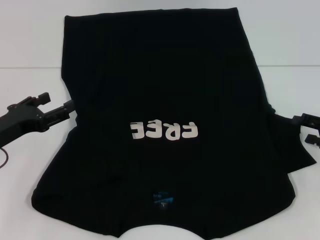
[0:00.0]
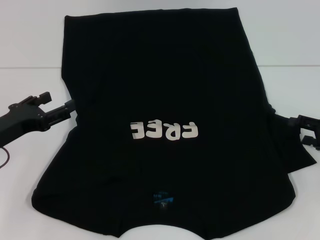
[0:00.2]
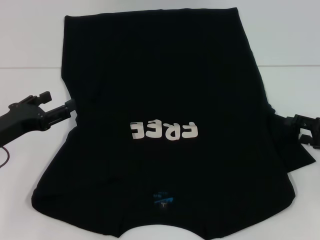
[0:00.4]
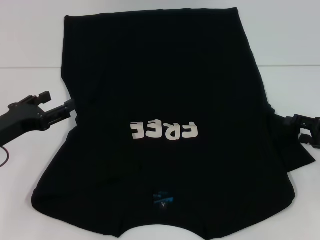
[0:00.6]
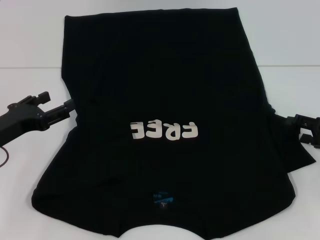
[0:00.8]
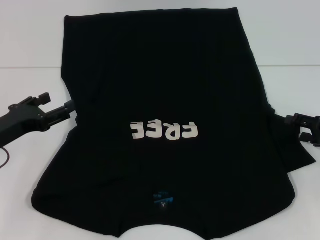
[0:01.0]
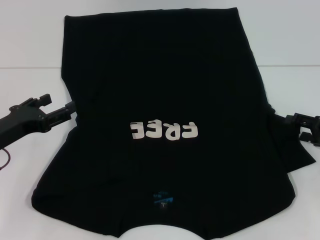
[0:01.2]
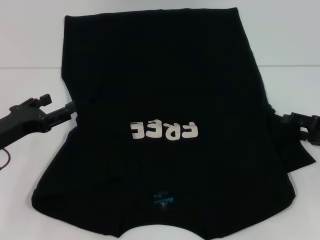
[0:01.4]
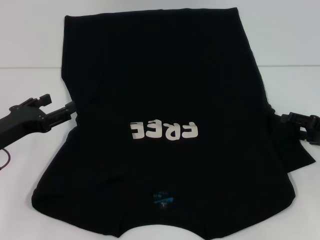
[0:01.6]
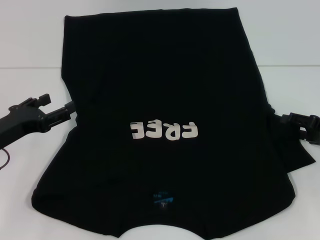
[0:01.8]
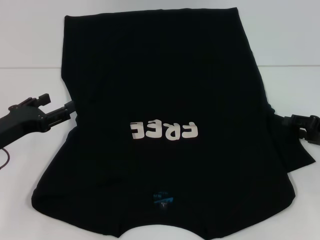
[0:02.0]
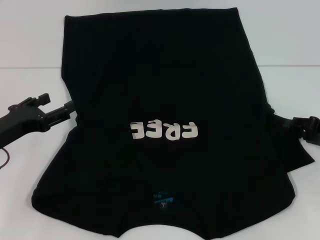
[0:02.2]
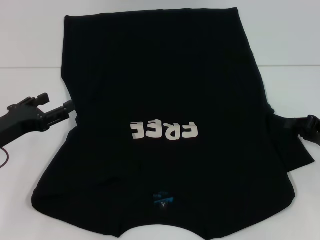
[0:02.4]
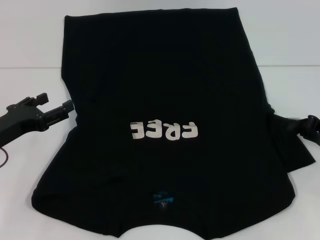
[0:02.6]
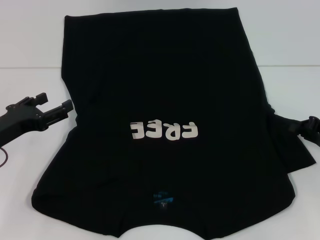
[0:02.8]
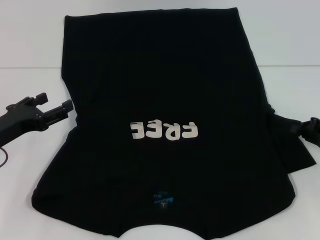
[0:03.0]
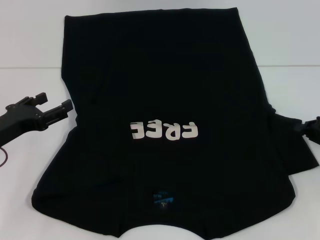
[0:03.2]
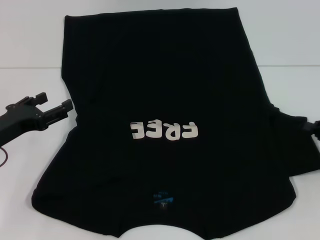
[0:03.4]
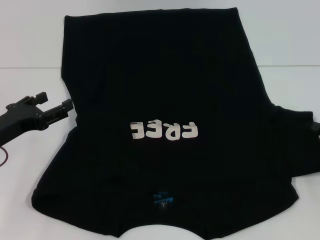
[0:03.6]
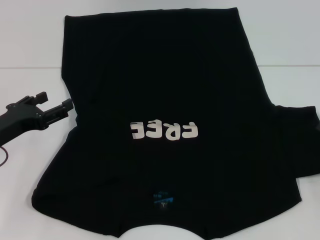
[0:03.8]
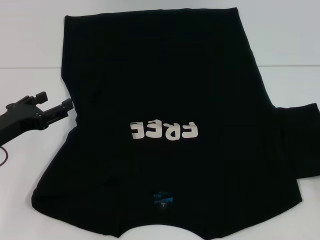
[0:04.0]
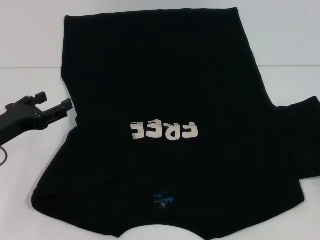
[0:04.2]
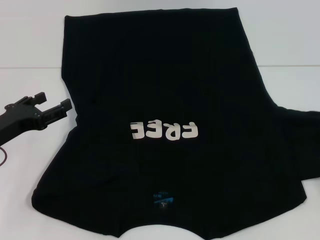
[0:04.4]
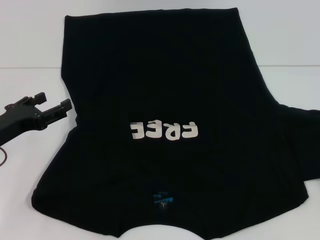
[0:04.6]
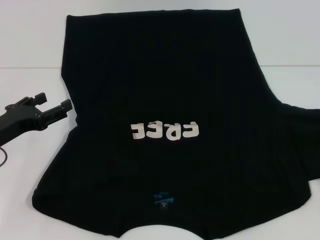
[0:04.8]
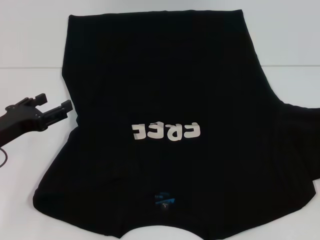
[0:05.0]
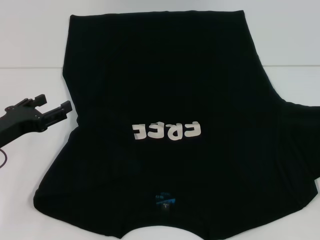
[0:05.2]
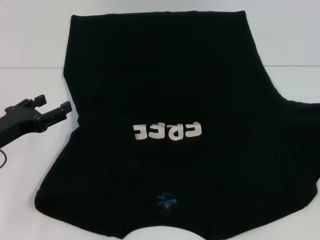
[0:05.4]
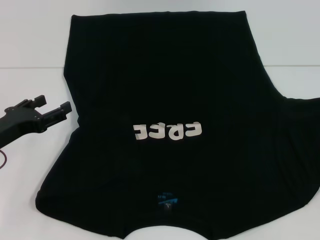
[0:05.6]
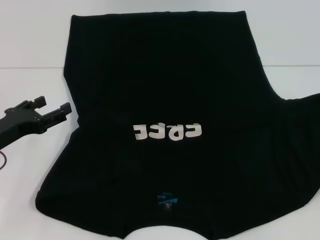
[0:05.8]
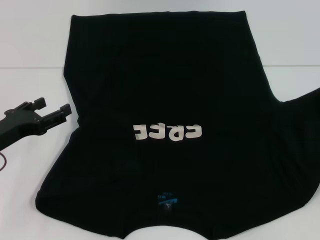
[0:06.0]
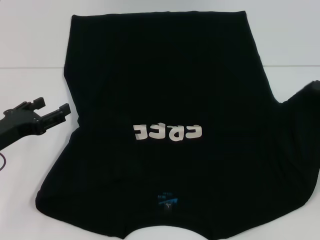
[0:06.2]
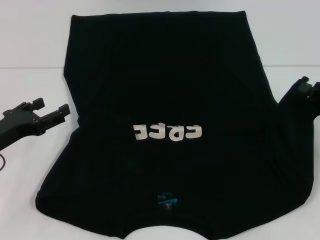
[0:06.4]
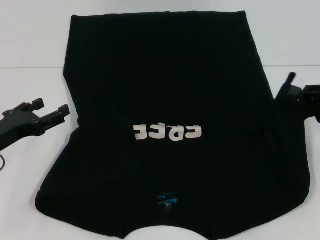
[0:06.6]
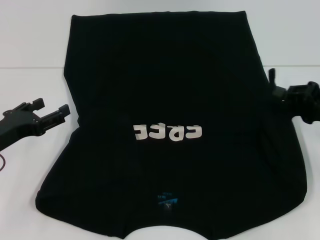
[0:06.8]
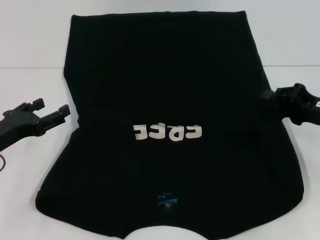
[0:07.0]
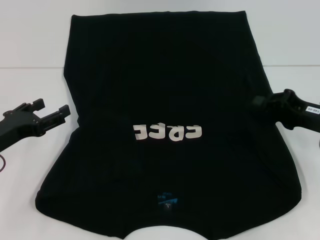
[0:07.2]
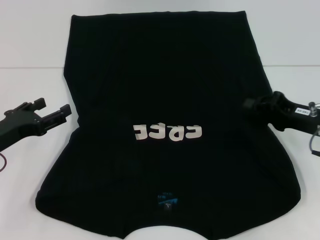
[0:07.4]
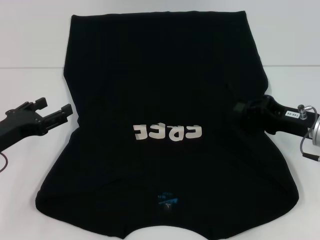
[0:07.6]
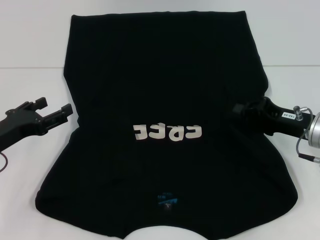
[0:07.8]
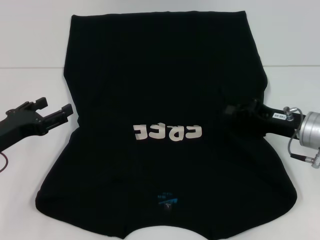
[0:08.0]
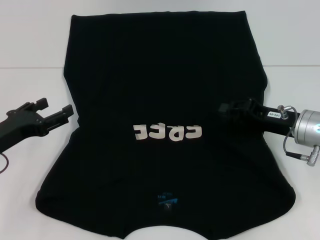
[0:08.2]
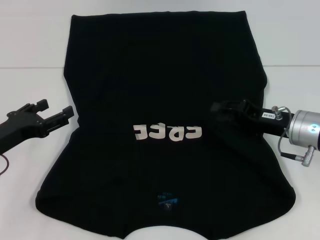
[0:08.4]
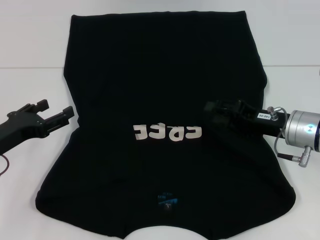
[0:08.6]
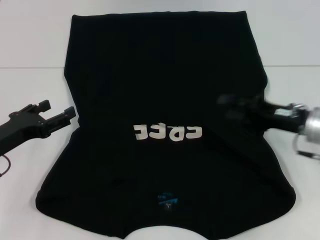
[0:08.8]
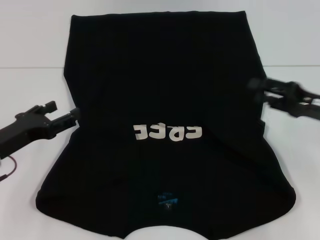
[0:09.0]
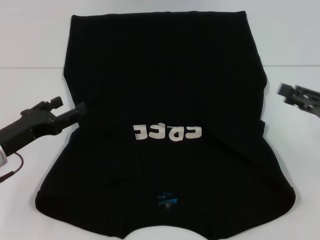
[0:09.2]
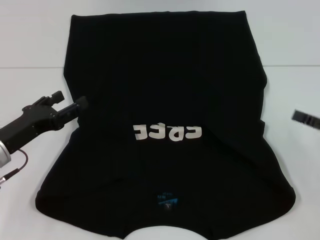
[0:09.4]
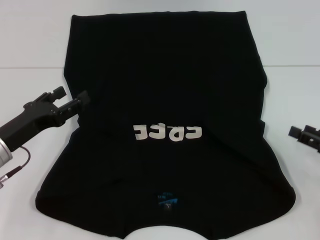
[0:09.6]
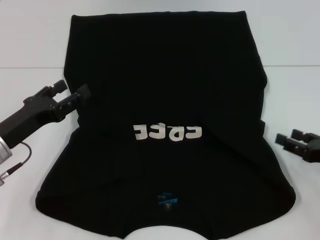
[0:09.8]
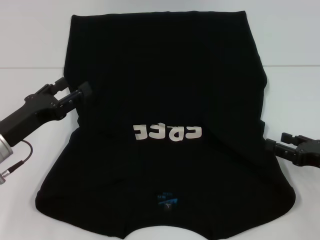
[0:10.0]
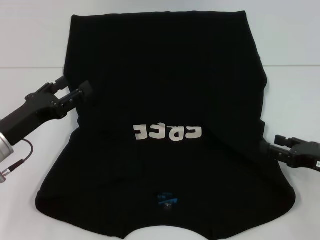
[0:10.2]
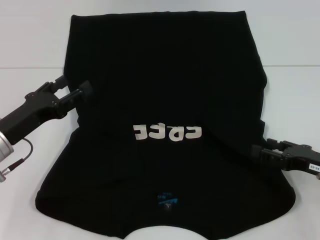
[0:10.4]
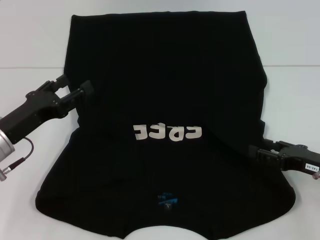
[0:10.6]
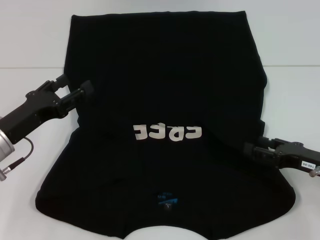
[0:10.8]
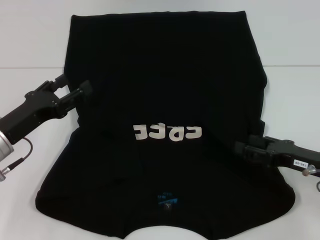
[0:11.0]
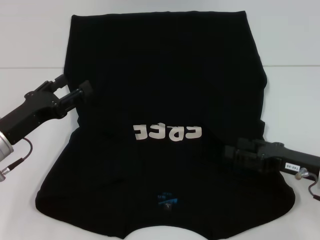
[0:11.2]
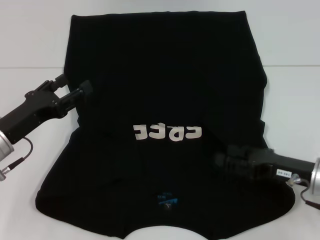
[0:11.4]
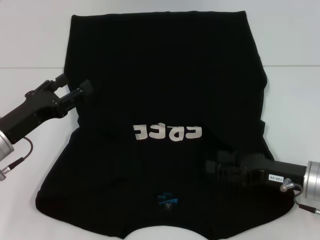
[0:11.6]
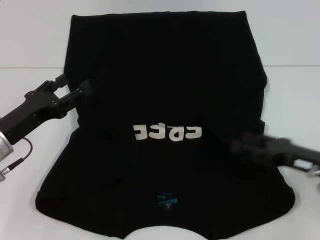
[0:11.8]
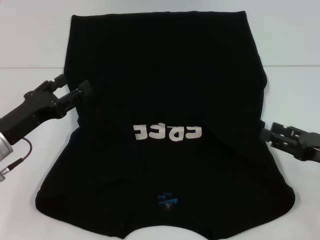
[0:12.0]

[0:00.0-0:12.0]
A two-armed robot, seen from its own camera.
Step, 0:00.0 to 0:08.8: Fold the bottom right sleeve with your right hand.
0:00.0 to 0:01.6: The grippers move only a little.
0:01.6 to 0:03.0: The right gripper closes up.
0:03.0 to 0:04.4: The right gripper heads to the right, covering approximately 5 cm.
0:04.4 to 0:06.0: There are only small adjustments of the grippers.
0:06.0 to 0:07.6: The right gripper travels to the left by approximately 10 cm.
0:07.6 to 0:09.0: The right gripper opens up.
0:09.0 to 0:10.4: The right gripper heads downward, covering about 5 cm.
0:10.4 to 0:12.0: The grippers move only a little.

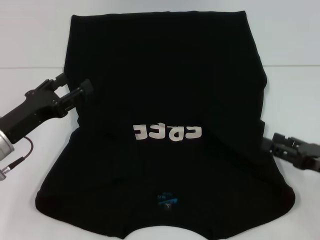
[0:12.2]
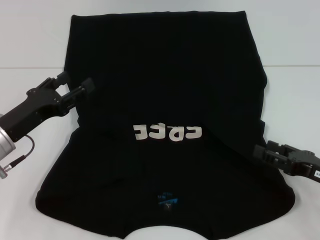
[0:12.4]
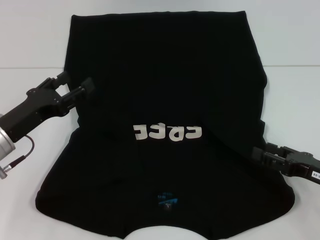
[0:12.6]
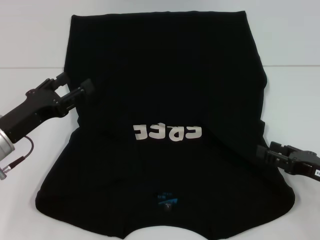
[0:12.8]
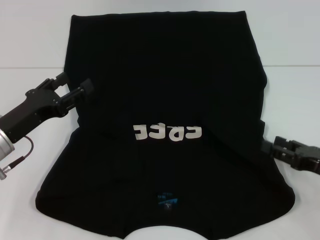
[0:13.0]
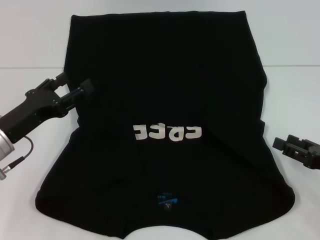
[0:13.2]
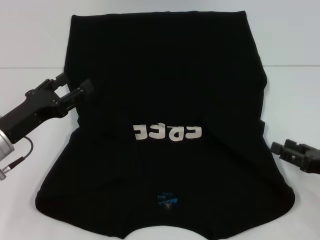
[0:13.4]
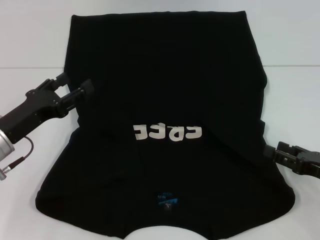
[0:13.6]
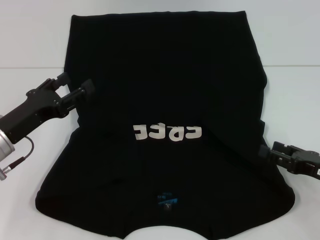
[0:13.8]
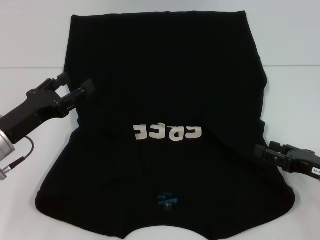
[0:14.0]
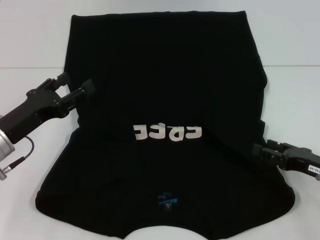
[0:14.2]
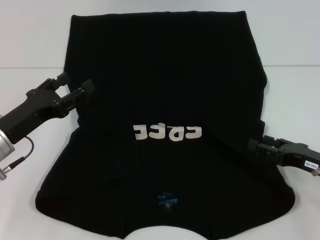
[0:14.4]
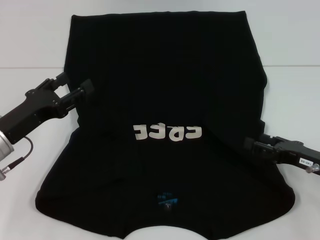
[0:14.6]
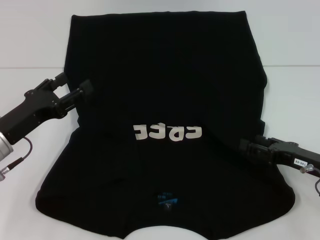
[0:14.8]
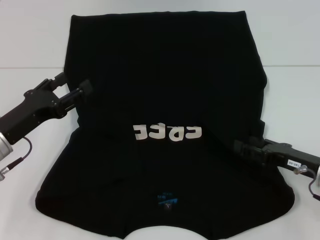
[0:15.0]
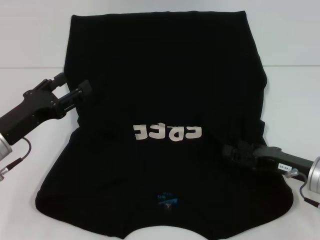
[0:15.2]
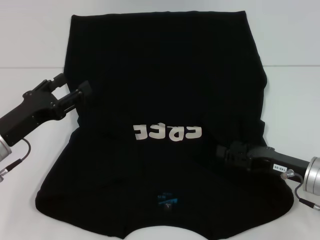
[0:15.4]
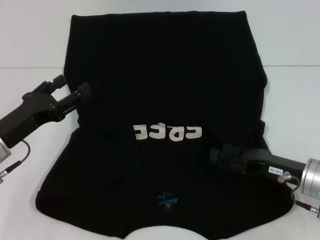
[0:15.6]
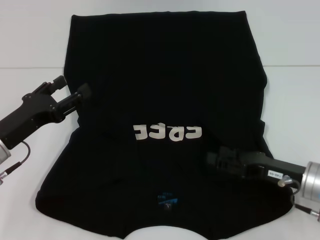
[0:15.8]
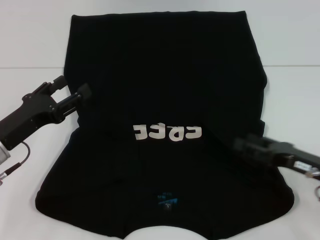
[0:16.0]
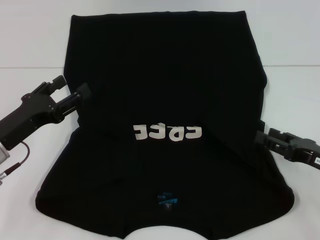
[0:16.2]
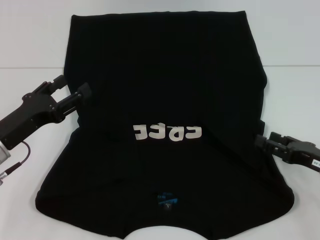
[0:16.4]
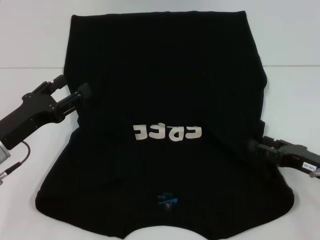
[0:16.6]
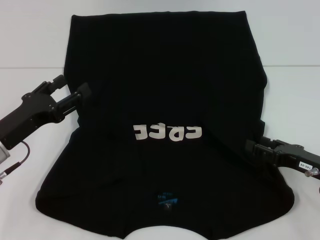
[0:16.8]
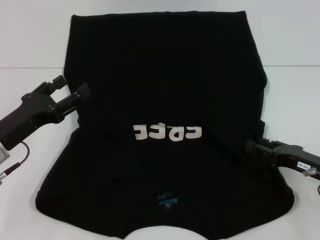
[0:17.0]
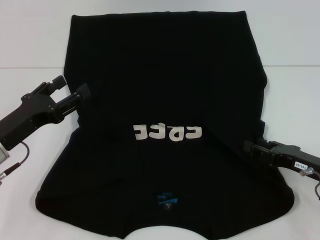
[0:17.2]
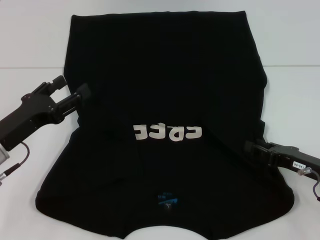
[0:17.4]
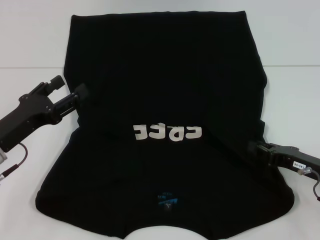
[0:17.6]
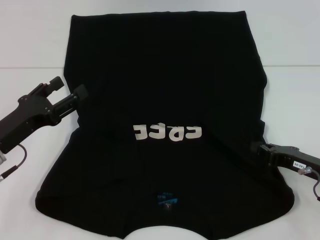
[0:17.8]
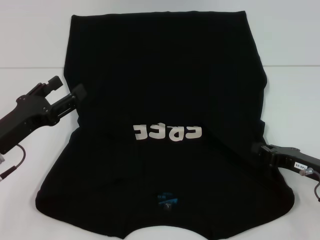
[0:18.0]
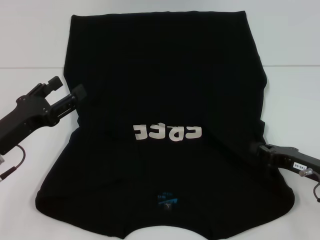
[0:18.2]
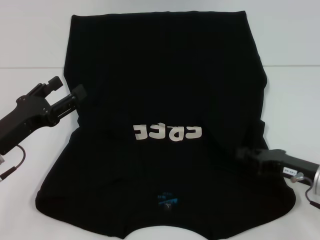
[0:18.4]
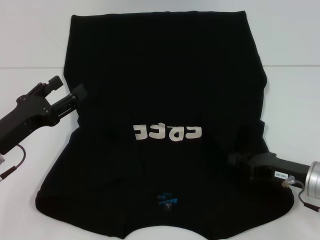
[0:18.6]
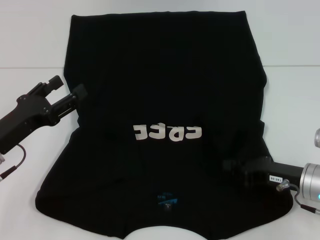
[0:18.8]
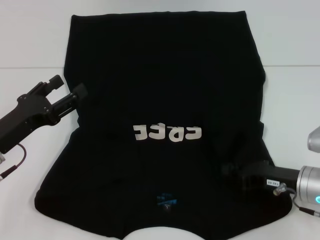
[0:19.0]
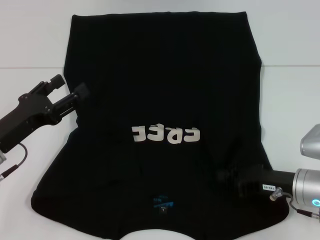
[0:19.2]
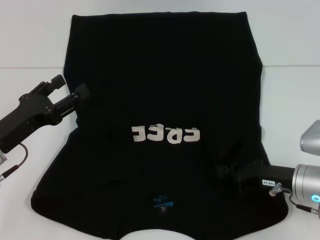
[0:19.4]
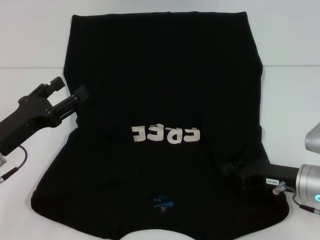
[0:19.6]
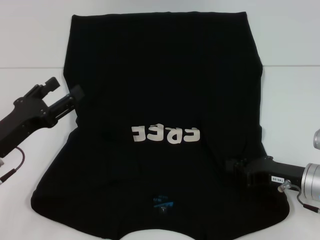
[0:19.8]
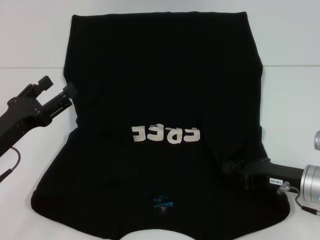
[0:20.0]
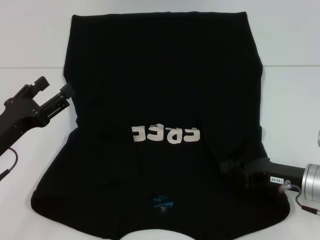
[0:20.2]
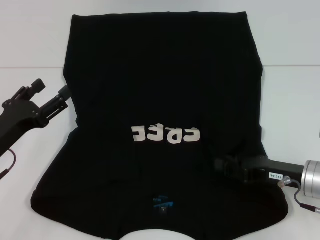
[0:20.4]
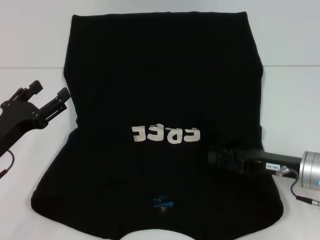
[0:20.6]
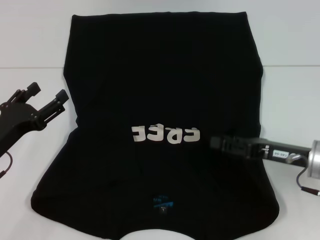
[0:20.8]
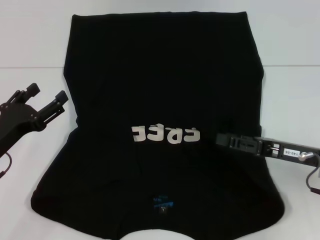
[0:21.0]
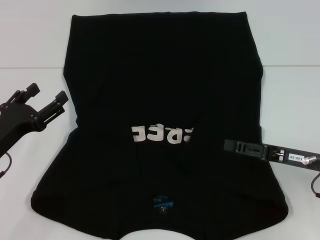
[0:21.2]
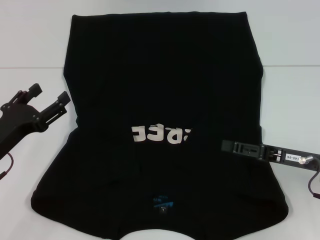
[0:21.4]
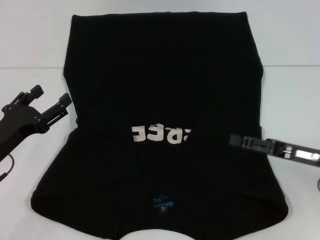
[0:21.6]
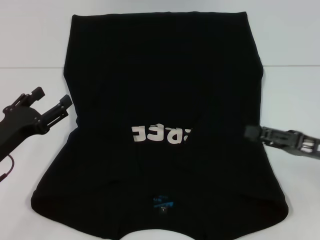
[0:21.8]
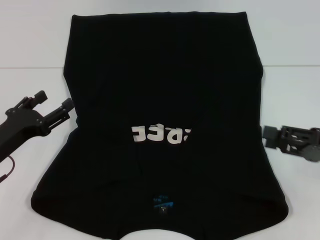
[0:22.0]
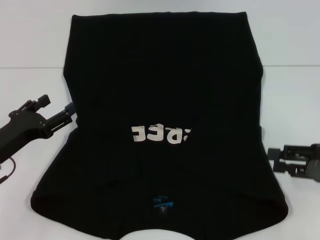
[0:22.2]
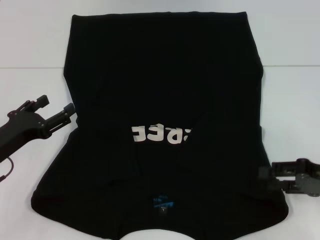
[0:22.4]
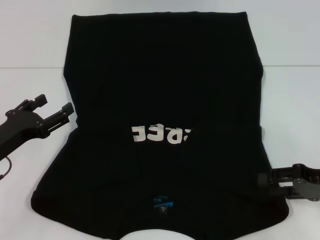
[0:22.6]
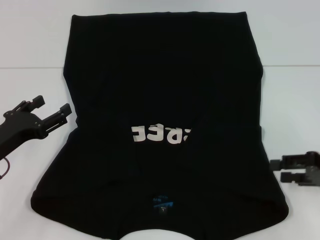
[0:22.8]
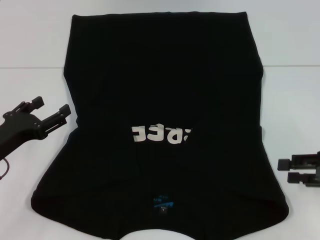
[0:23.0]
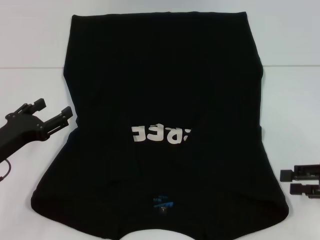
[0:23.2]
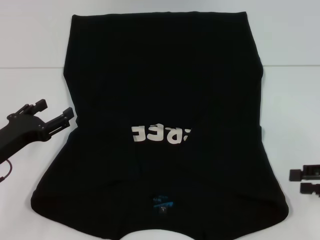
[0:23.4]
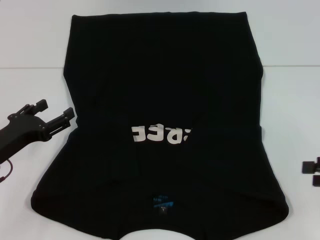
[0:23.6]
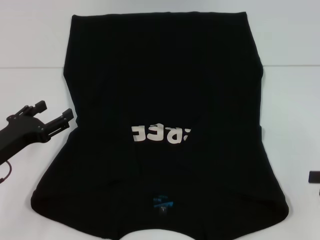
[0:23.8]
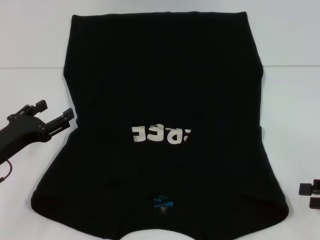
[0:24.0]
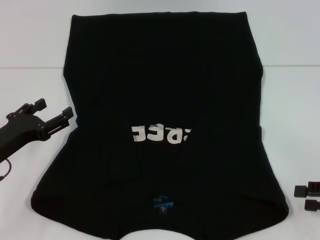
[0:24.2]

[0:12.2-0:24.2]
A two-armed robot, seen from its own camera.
0:12.2 to 0:13.8: The grippers move only a little.
0:13.8 to 0:15.2: The right gripper goes about 5 cm to the left.
0:15.2 to 0:16.6: There are only small adjustments of the grippers.
0:16.6 to 0:18.2: The right gripper closes its fingers.
0:19.8 to 0:21.2: The right gripper opens up.
0:22.6 to 0:24.2: The right gripper ends up about 5 cm from where it was.
